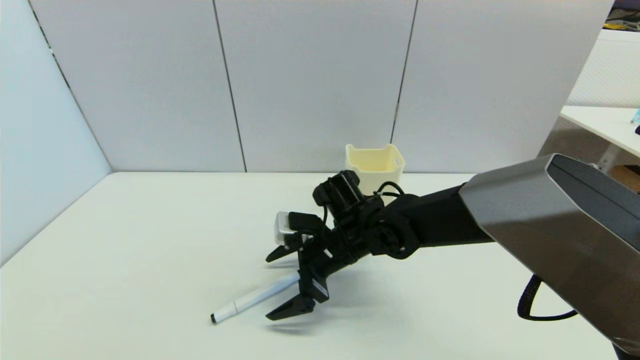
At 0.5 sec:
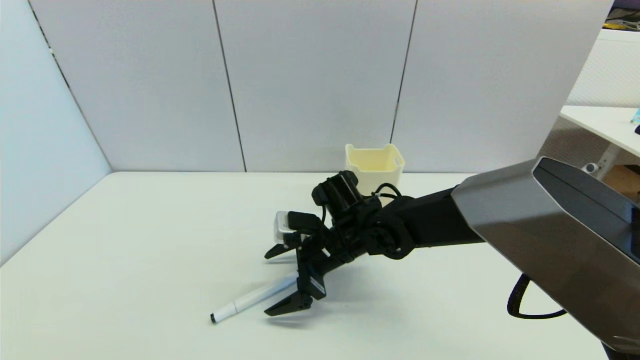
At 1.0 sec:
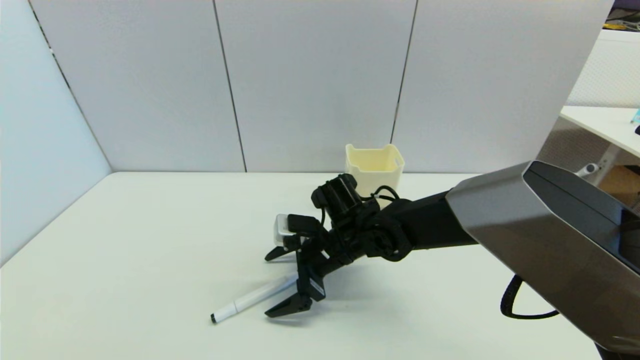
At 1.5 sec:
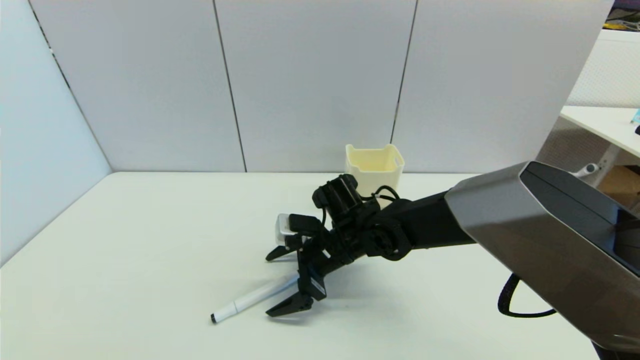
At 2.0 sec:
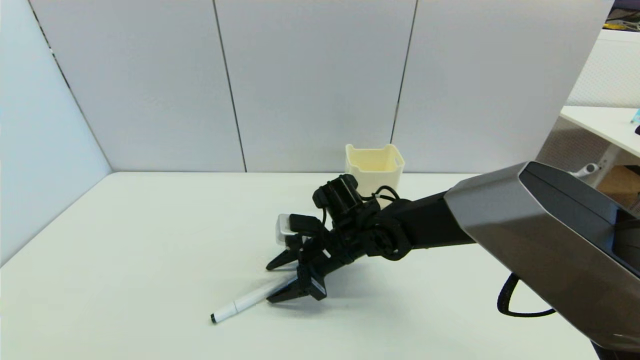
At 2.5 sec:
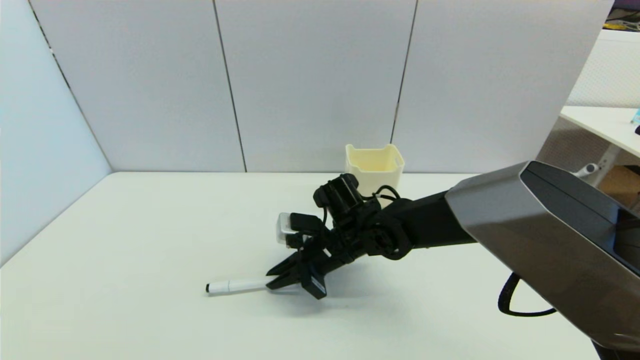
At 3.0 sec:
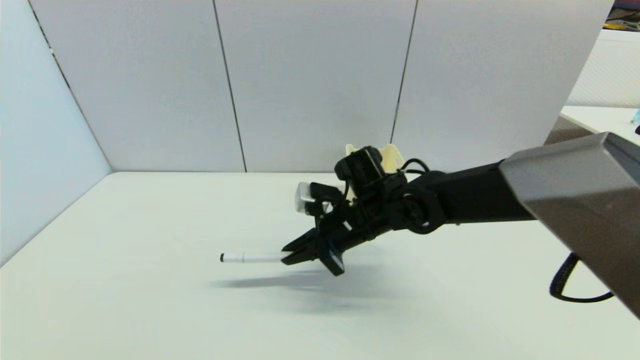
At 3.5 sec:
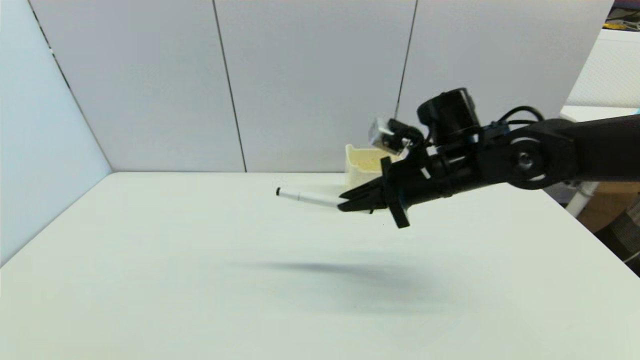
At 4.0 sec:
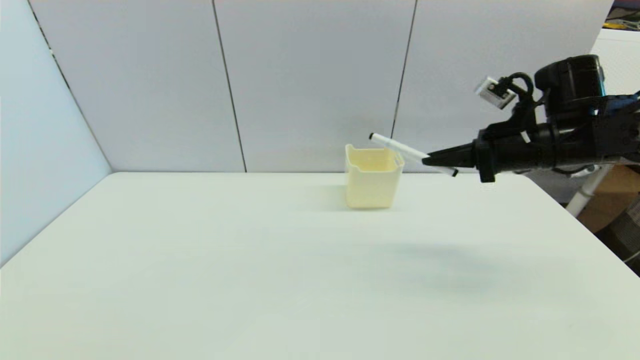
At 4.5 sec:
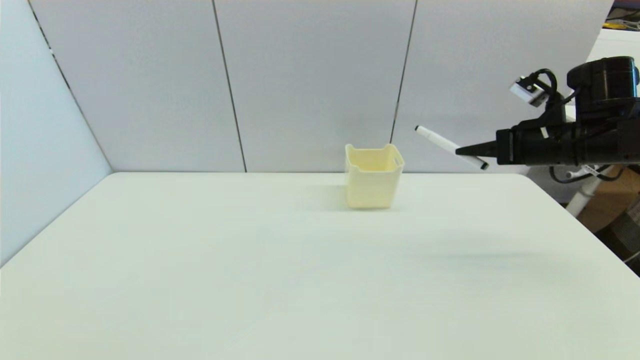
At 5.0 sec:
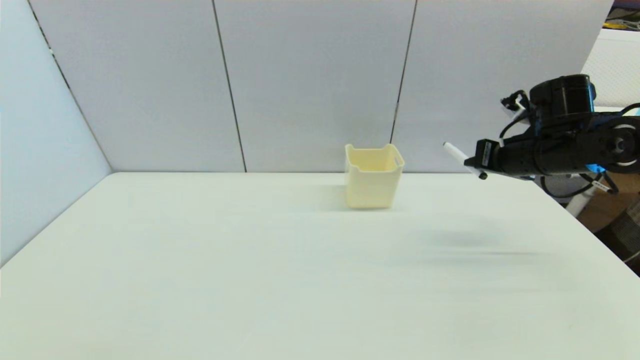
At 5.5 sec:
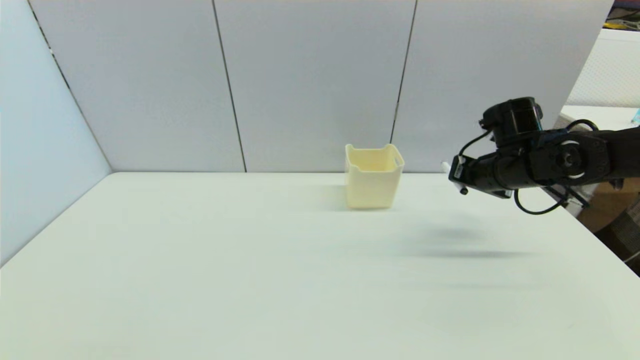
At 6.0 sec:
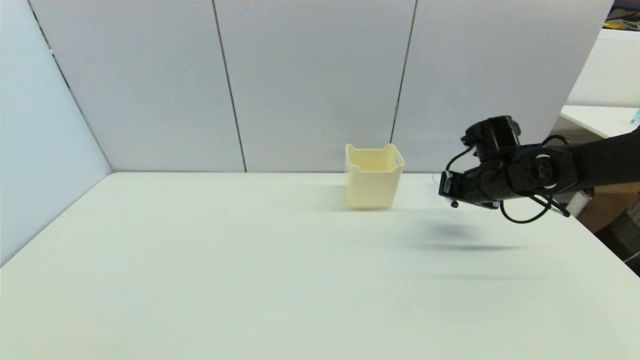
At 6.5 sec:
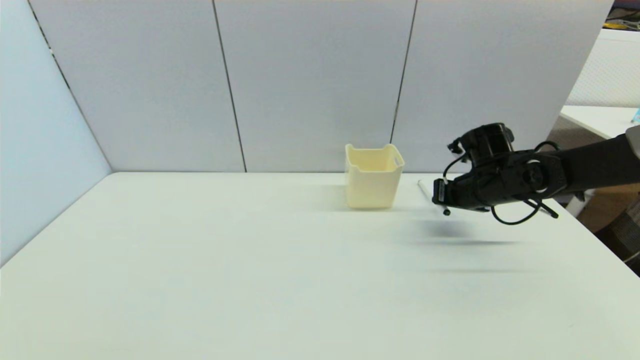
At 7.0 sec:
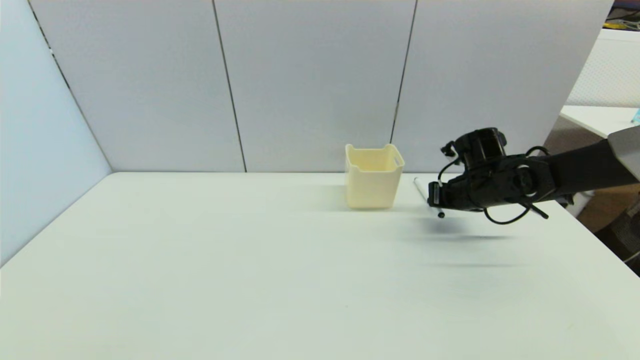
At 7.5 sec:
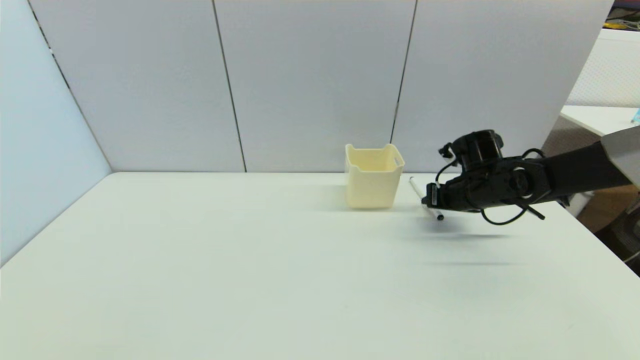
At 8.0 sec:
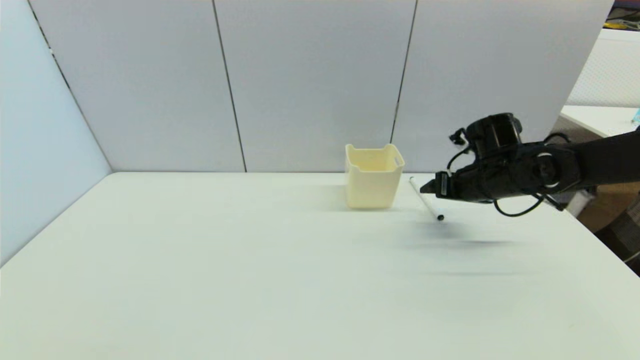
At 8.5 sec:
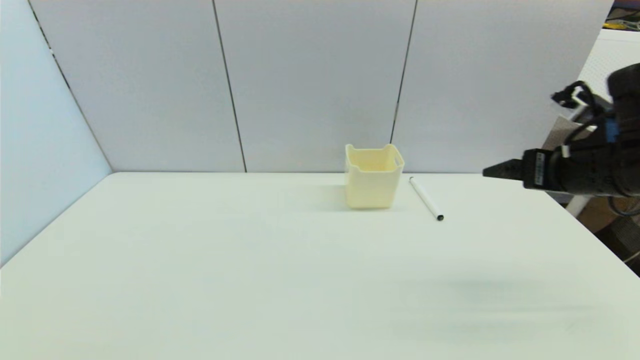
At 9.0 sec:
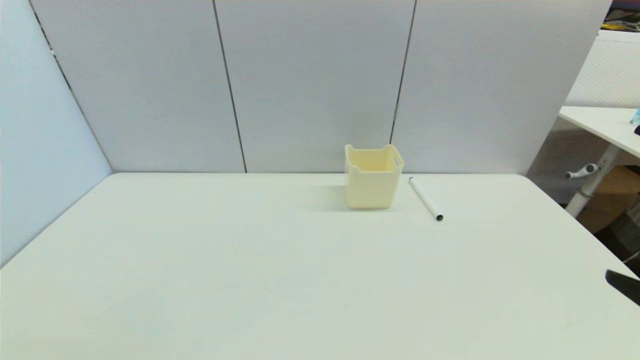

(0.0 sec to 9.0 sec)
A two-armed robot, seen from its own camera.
Task of the whole recording: put the black marker in the designated position.
Step, 0.0 sec - 2.0 sec: Grasp the Marker pen with right gripper.
Step, 2.5 sec - 7.5 sec: Place the Marker pen on the table with right gripper.
0.0 sec - 2.0 sec: The right gripper closes up.
2.0 sec - 4.5 sec: The right gripper travels to the right and upward by about 35 cm, and closes.
4.5 sec - 7.0 sec: The right gripper shifts roughly 15 cm downward, forward and to the left.
7.0 sec - 9.0 sec: The right gripper travels backward by roughly 35 cm, and opens its fingers.

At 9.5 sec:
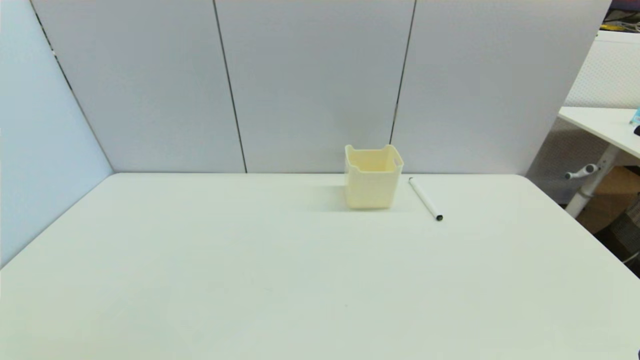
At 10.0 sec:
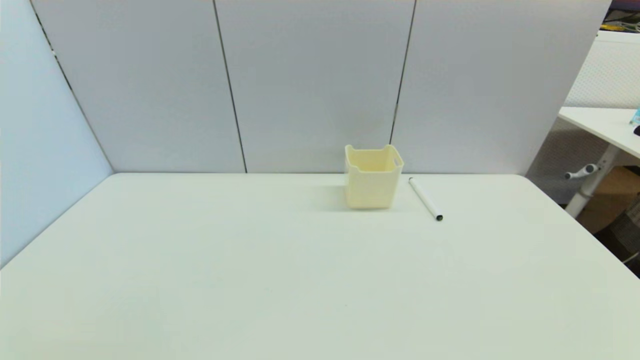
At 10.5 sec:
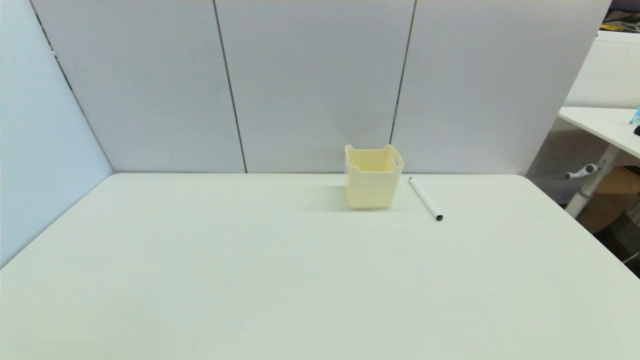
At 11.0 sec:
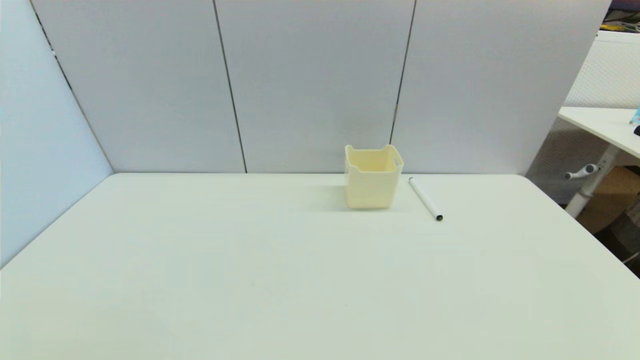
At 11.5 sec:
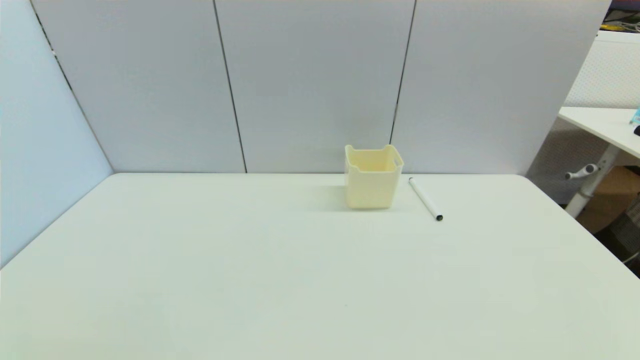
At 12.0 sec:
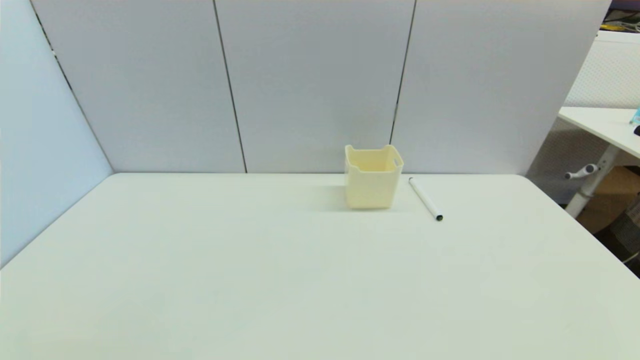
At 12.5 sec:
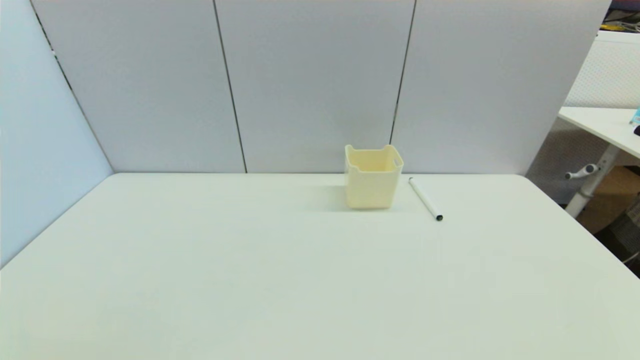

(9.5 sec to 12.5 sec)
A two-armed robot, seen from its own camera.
Task of the whole recording: put the black marker in the designated position.
11.0 sec - 12.5 sec: The two grippers keep their place.
